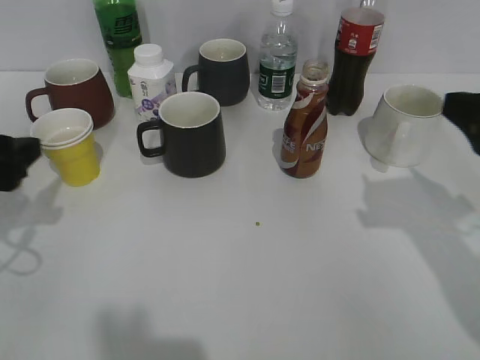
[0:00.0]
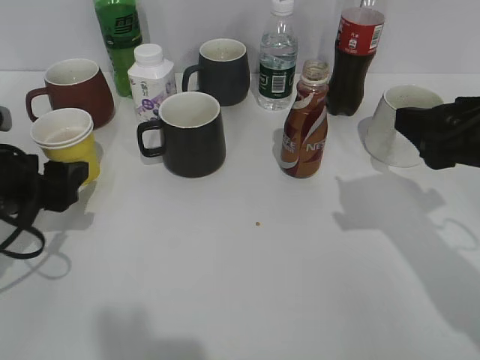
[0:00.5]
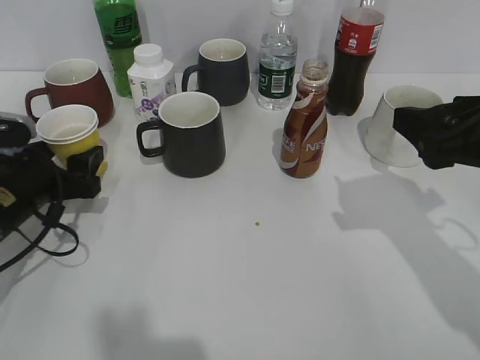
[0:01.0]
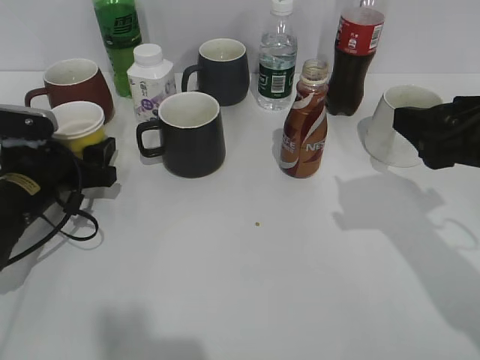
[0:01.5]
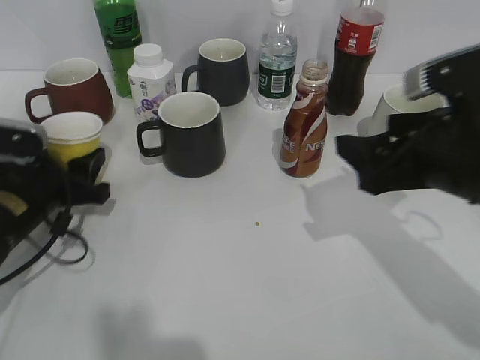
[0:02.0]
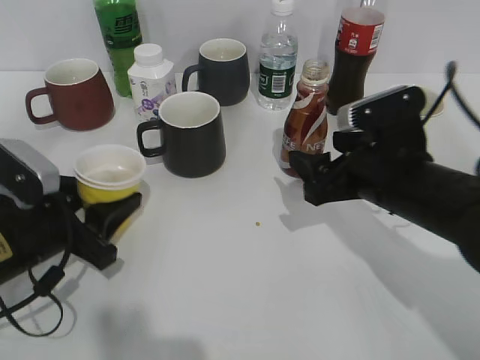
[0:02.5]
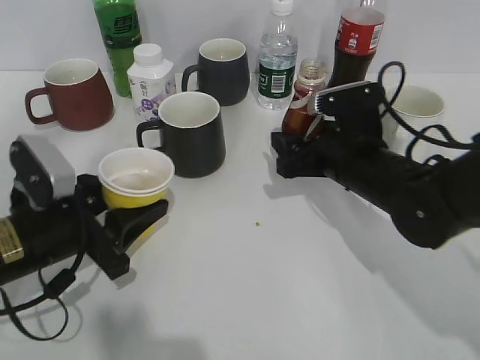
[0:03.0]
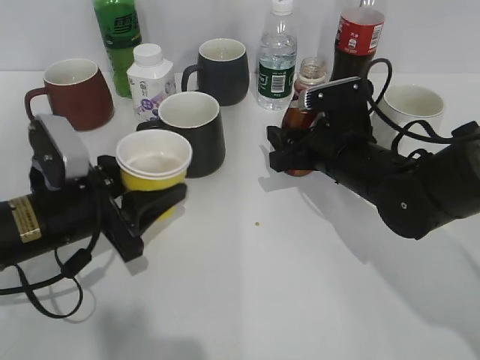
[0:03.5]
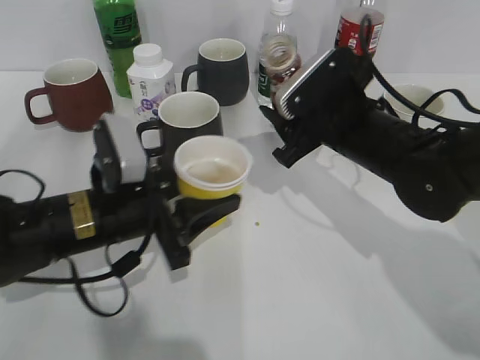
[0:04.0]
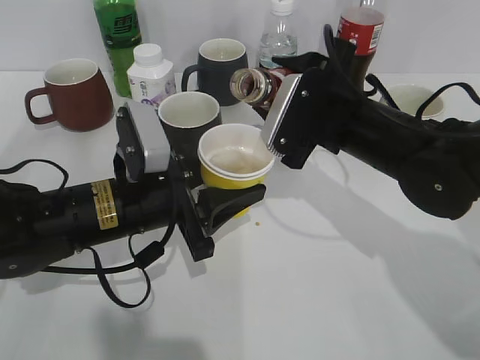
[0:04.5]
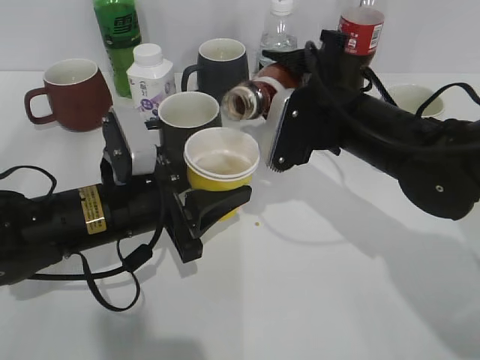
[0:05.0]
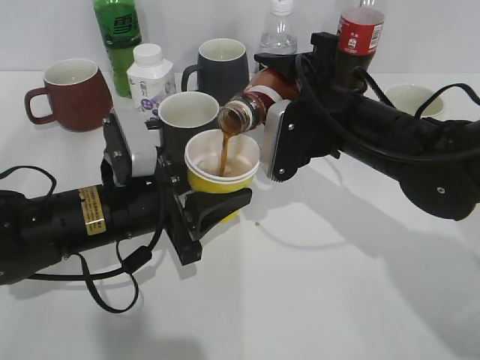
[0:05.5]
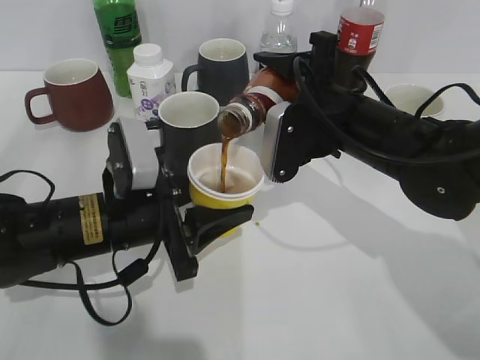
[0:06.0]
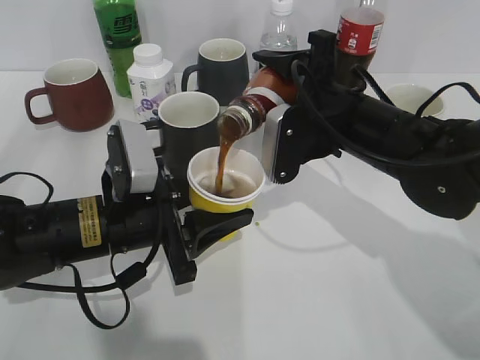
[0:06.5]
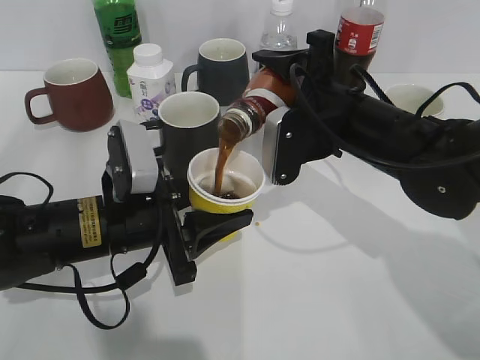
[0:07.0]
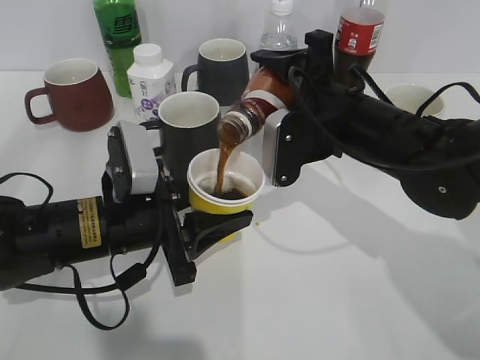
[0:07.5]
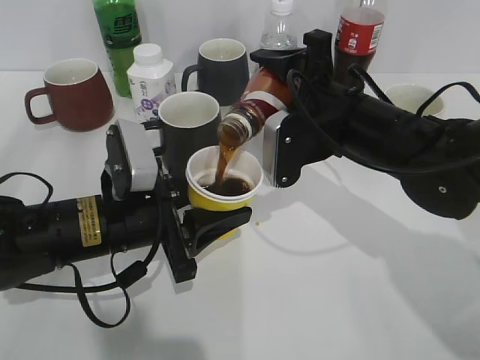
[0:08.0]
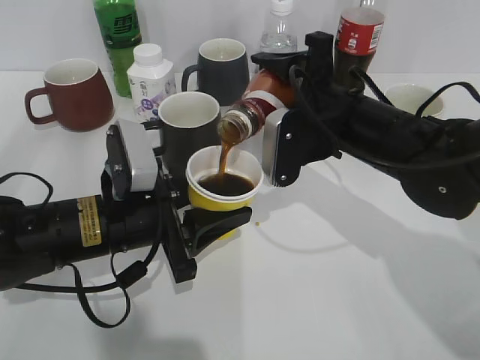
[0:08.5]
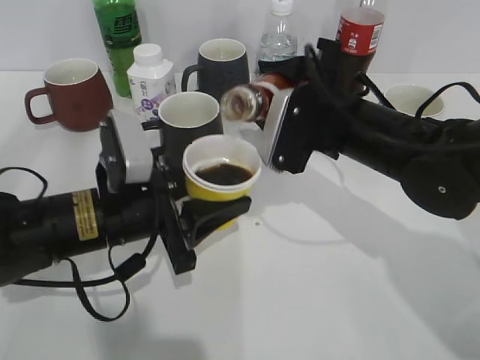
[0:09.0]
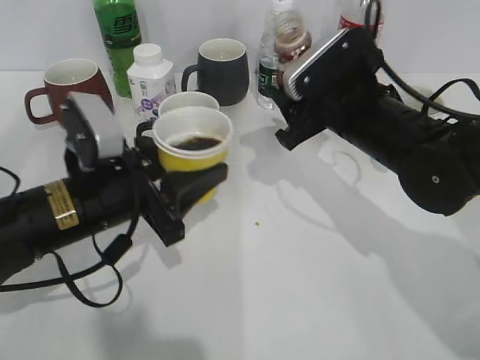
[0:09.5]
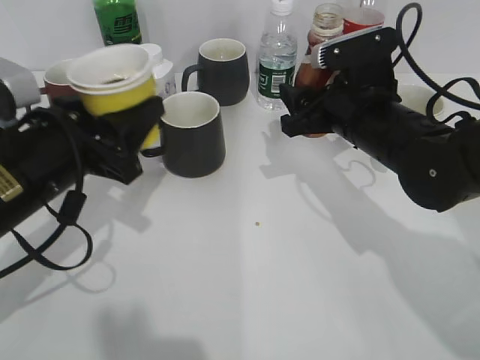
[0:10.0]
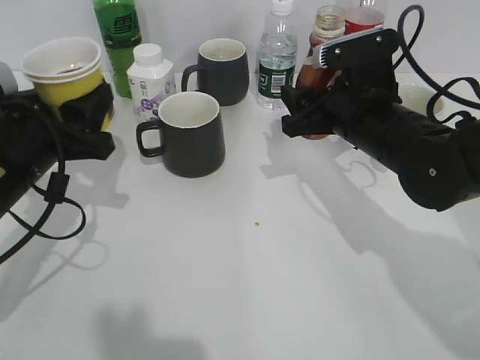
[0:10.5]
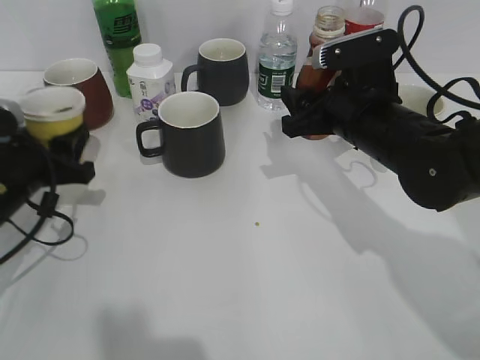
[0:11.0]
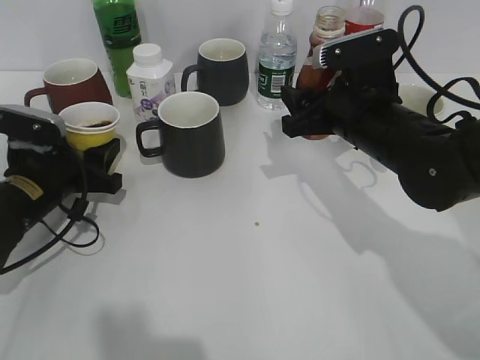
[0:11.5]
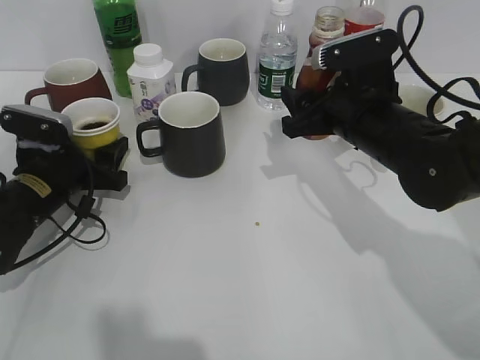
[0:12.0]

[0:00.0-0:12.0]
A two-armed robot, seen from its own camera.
Step, 0:00.0 to 0:01.5: Grasp the yellow paper cup with left gripper.
Step, 0:02.0 to 0:03.5: Grasp the bottle with coffee with right gripper.
Step, 0:04.0 to 0:09.0: Pour the coffee from bottle to cup with right gripper.
0:00.0 to 0:02.0: The left gripper is displaced downward and forward by approximately 10 cm, and closes up. The right gripper goes approximately 5 cm to the left.
0:02.0 to 0:04.0: The right gripper is displaced forward, to the left and downward by about 15 cm, and closes, while the left gripper travels to the right by roughly 10 cm.
0:06.0 to 0:08.0: The grippers move only a little.
0:08.0 to 0:10.0: The left gripper moves upward and to the left, roughly 10 cm.
0:10.0 to 0:12.0: The left gripper is displaced downward and forward by approximately 10 cm.

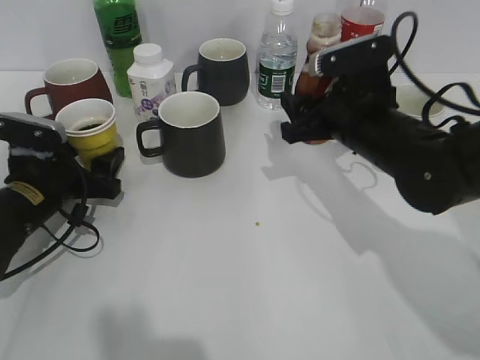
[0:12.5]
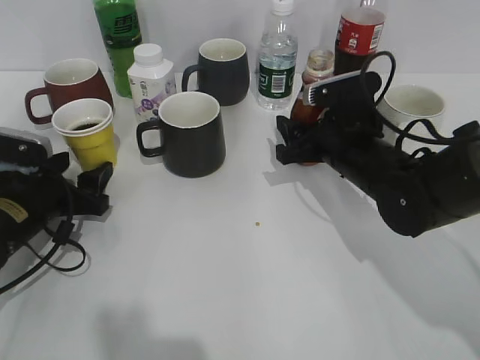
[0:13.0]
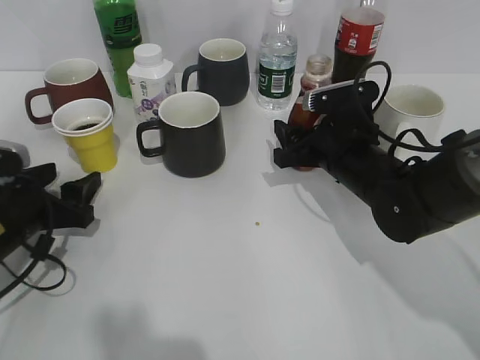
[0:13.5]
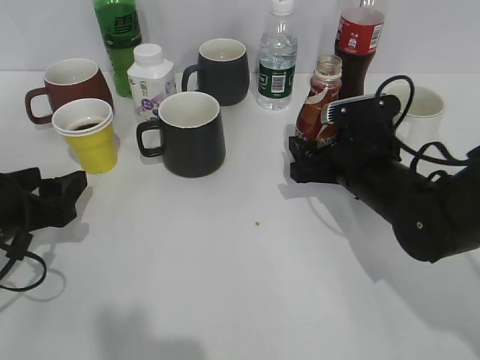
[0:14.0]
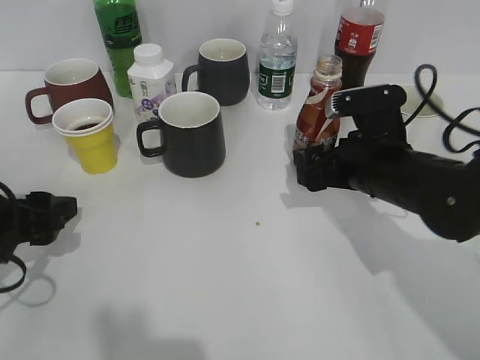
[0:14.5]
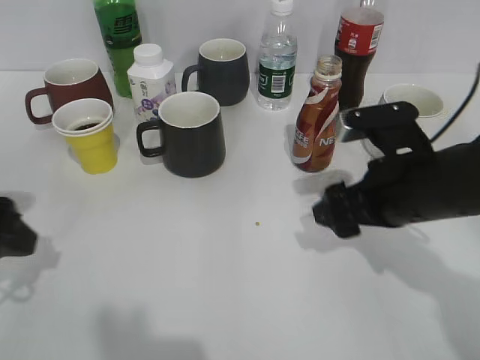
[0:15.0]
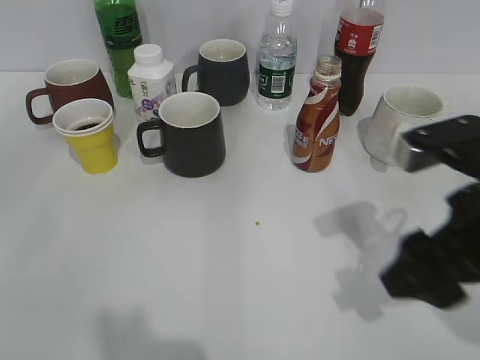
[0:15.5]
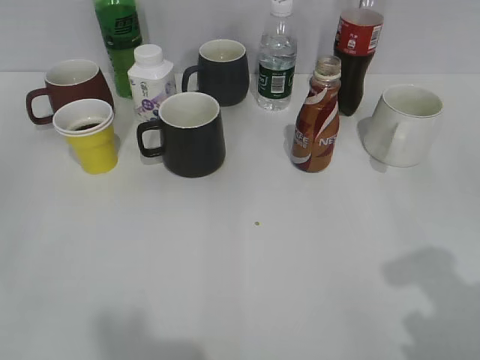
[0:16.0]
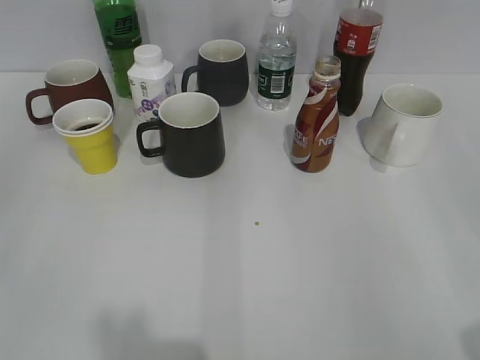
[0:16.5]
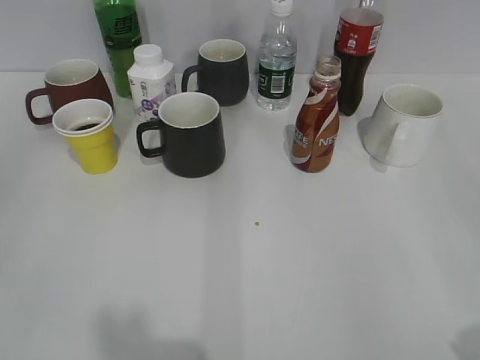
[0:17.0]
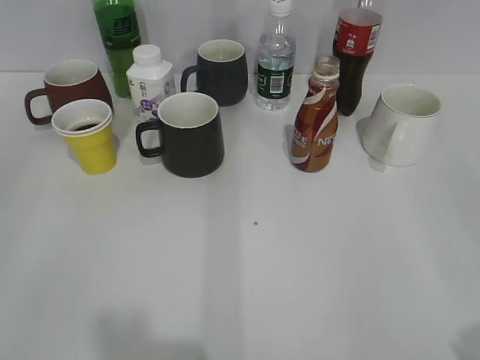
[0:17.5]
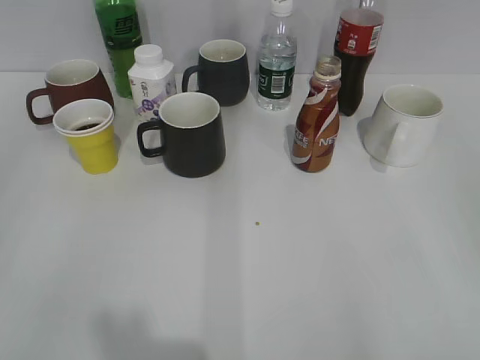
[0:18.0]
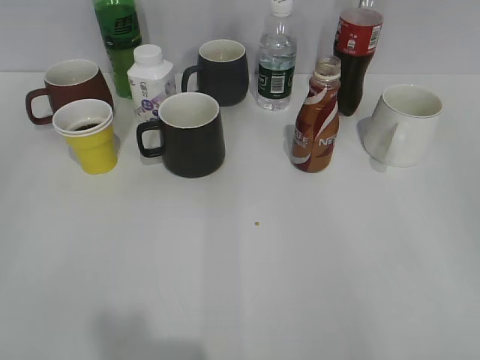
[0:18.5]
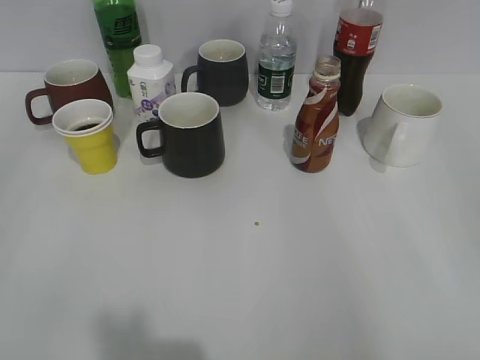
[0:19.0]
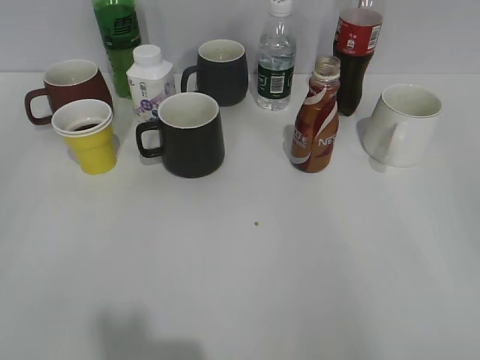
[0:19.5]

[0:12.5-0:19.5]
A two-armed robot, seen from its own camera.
Step, 0:13.0 to 0:14.5: Place the coffee bottle on the table with right gripper.
0:12.5 to 0:14.5: The right gripper opens up. Meanwhile the left gripper heads backward, covering roughly 10 cm.
0:14.5 to 0:16.0: The right gripper moves backward, upward and to the right, roughly 30 cm; the left gripper moves backward and upward, about 25 cm.
0:16.0 to 0:17.5: The right gripper is displaced backward by roughly 5 cm.

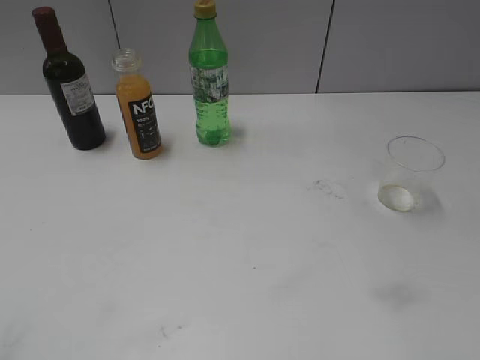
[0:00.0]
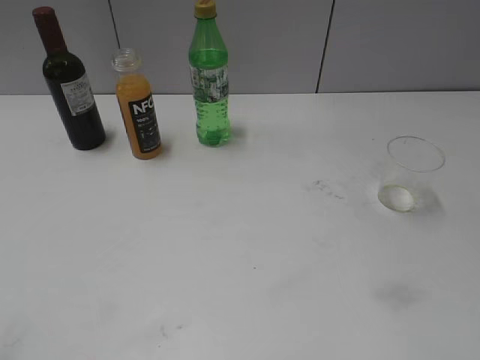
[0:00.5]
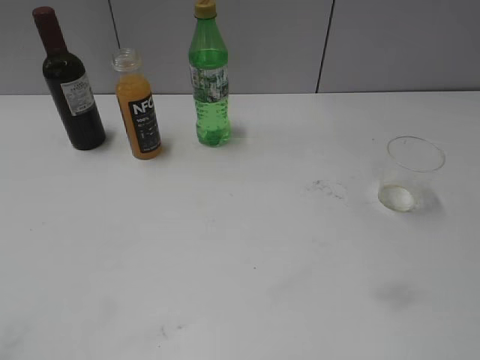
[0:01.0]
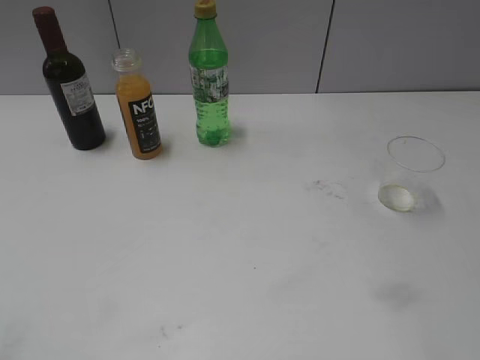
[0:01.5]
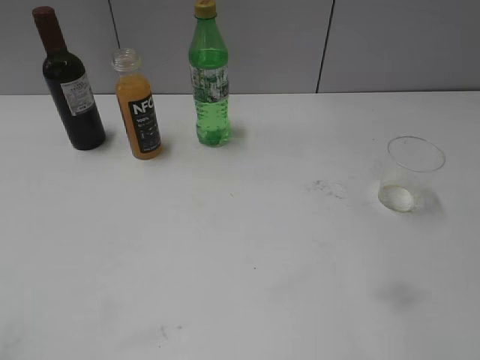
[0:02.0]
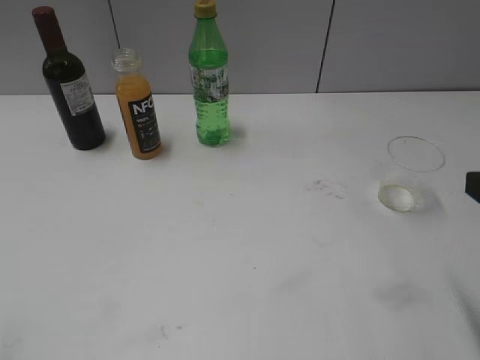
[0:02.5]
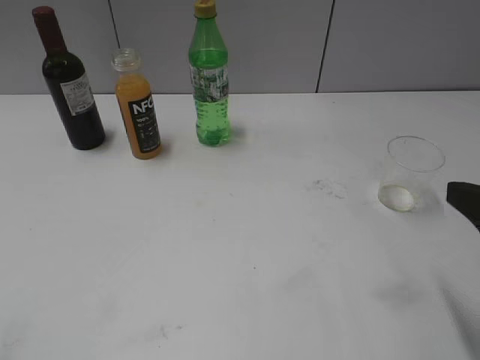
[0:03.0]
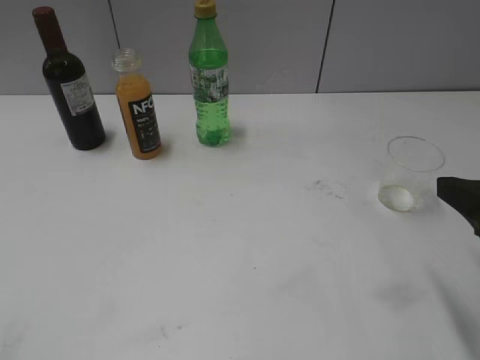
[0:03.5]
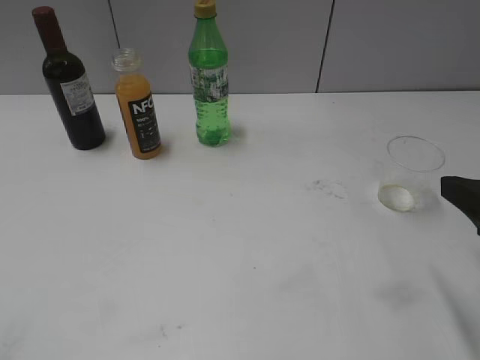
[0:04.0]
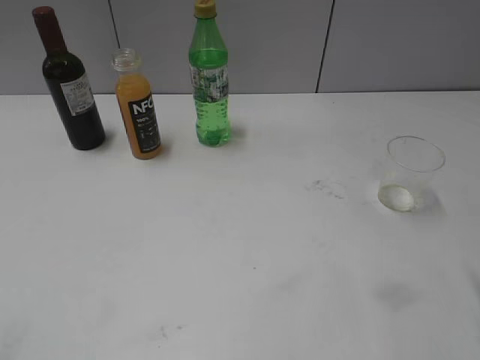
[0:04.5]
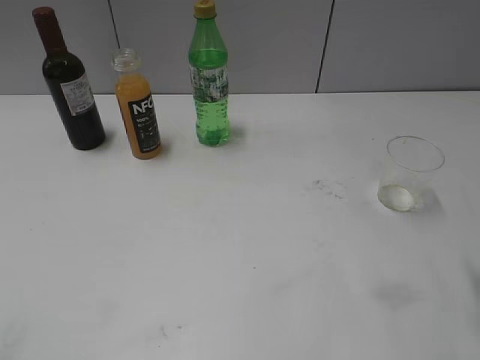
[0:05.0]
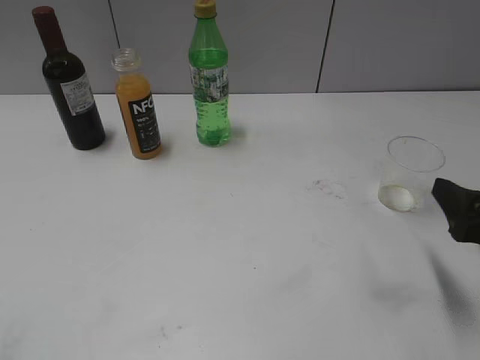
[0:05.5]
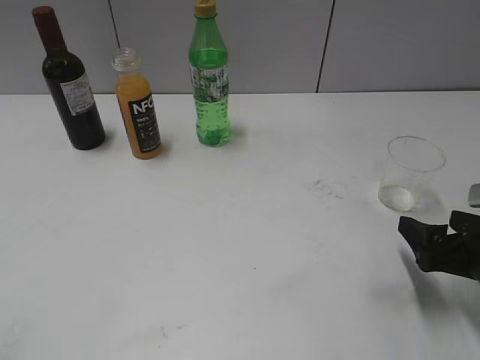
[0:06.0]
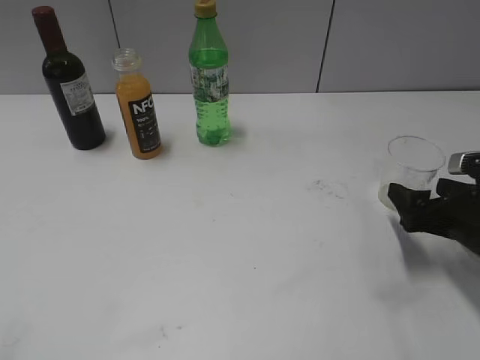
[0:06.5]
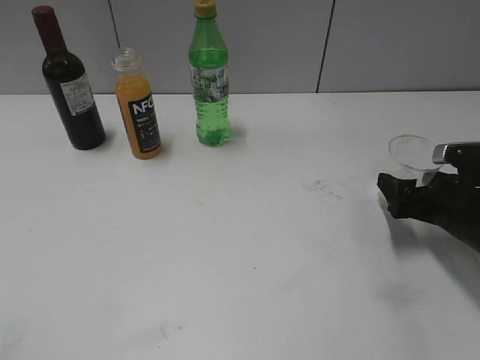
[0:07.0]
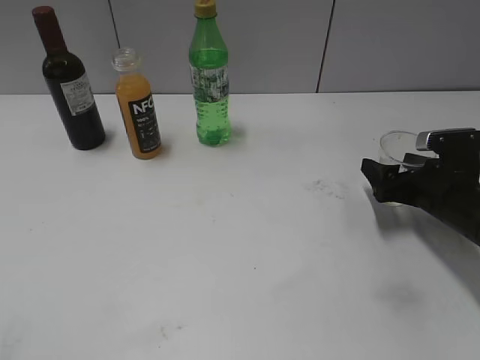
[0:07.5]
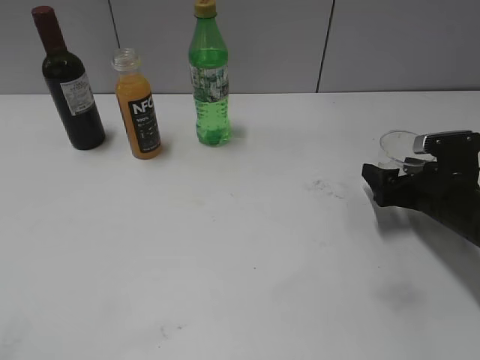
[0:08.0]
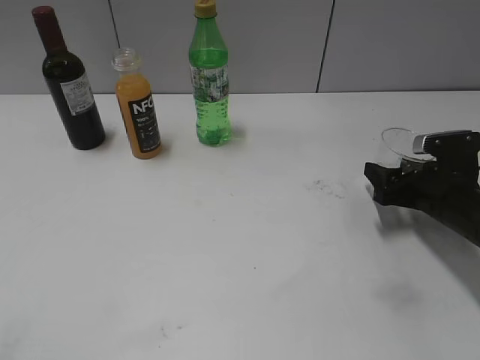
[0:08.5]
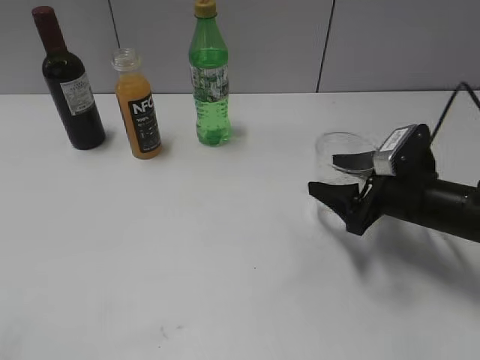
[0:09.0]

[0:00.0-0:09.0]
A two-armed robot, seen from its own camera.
Step, 0:02.5 to 0:08.5: Grasp the transparent cup with right gripper.
0:04.5 to 0:07.0: The right gripper is displaced downward and forward by some 20 cm, and opens.
0:07.0 to 0:09.0: The right gripper goes about 5 cm to the left, and closes its fingers.
